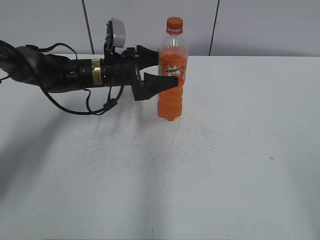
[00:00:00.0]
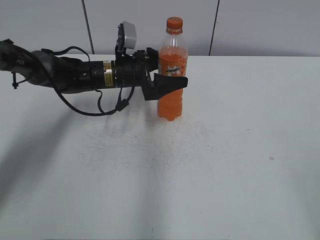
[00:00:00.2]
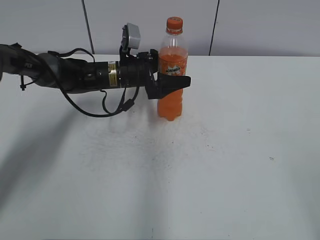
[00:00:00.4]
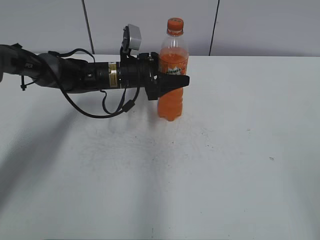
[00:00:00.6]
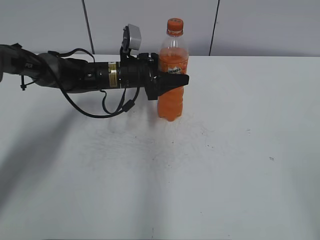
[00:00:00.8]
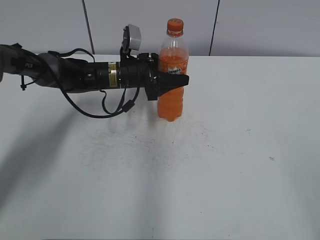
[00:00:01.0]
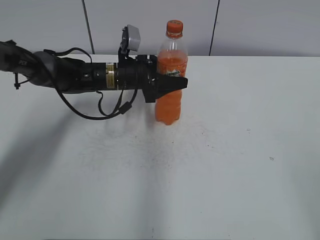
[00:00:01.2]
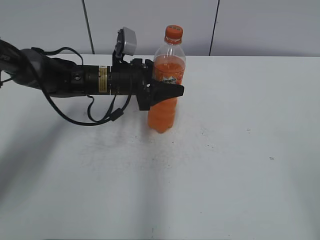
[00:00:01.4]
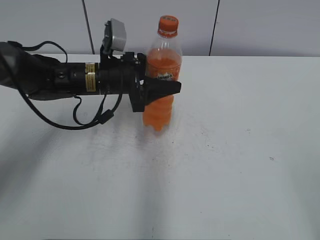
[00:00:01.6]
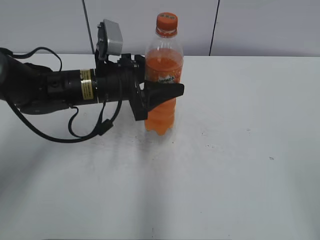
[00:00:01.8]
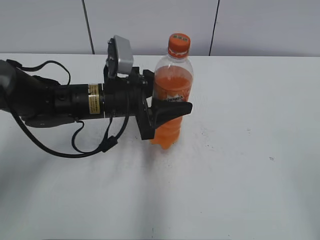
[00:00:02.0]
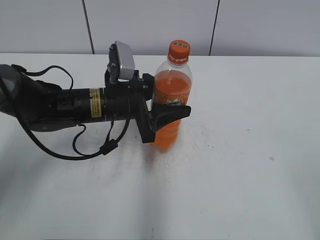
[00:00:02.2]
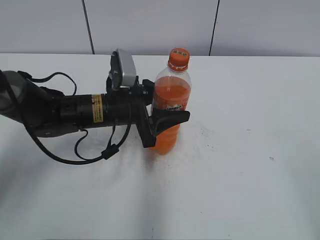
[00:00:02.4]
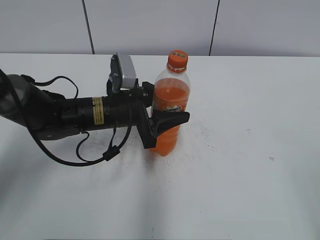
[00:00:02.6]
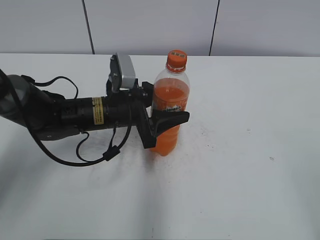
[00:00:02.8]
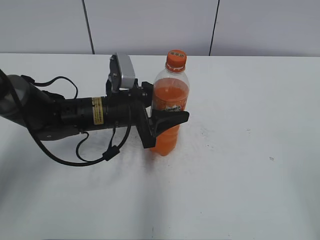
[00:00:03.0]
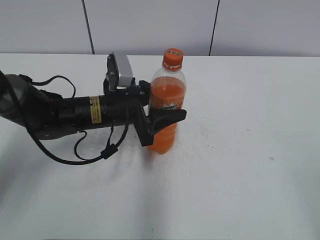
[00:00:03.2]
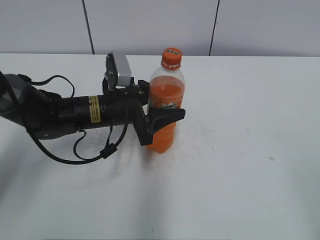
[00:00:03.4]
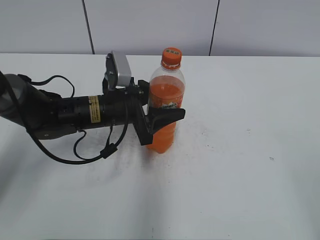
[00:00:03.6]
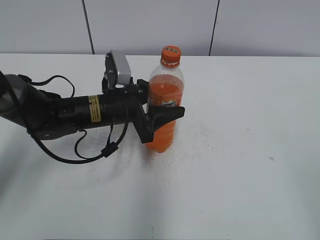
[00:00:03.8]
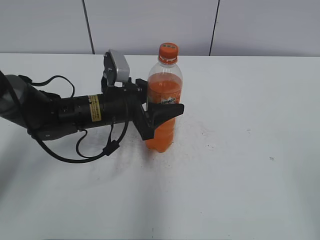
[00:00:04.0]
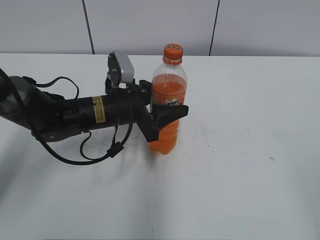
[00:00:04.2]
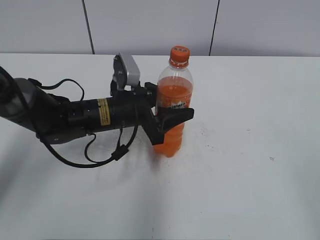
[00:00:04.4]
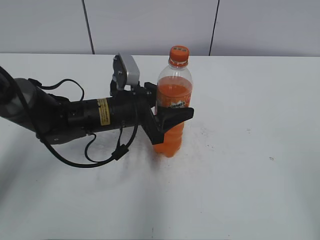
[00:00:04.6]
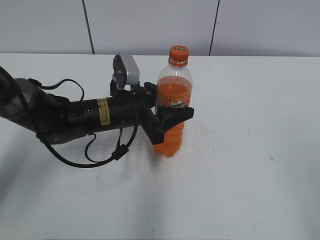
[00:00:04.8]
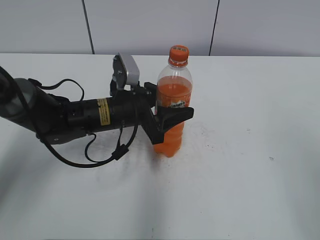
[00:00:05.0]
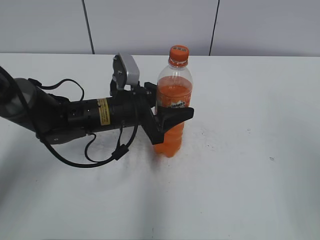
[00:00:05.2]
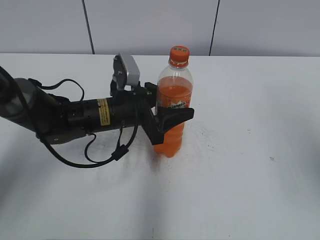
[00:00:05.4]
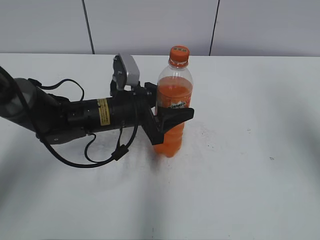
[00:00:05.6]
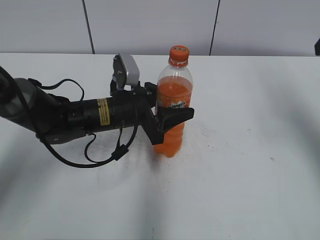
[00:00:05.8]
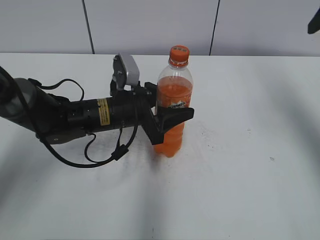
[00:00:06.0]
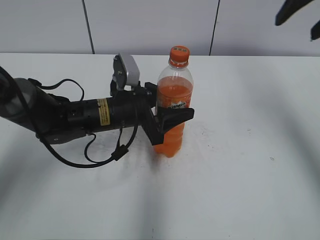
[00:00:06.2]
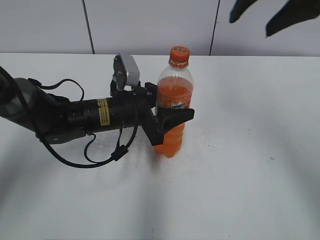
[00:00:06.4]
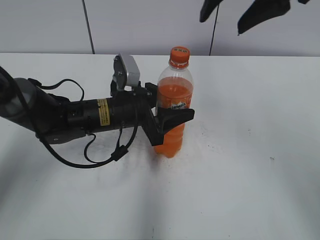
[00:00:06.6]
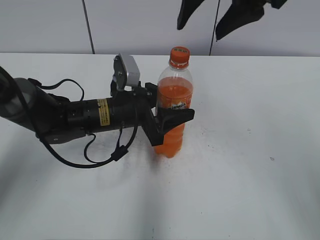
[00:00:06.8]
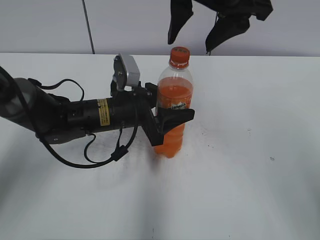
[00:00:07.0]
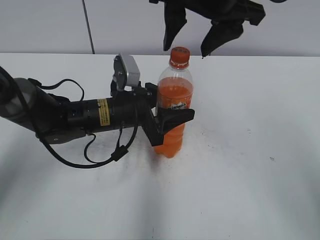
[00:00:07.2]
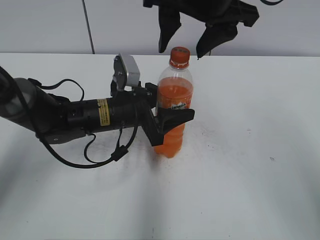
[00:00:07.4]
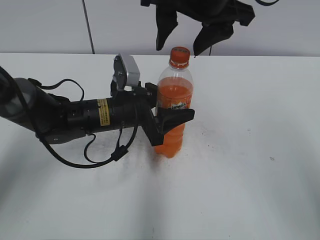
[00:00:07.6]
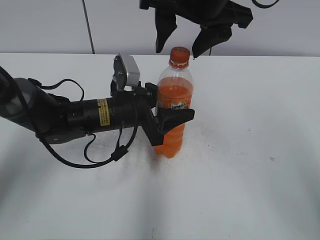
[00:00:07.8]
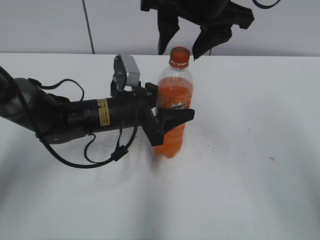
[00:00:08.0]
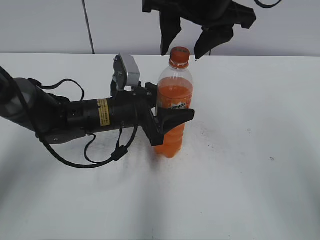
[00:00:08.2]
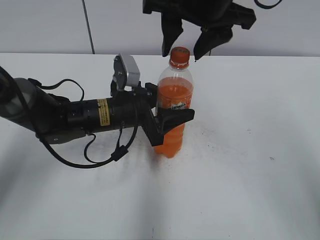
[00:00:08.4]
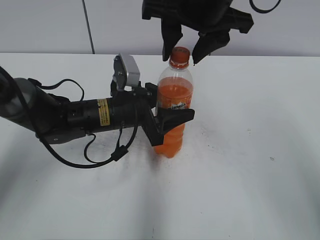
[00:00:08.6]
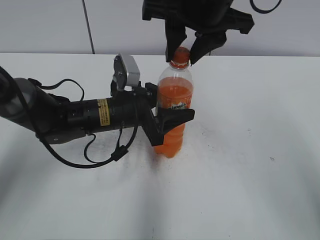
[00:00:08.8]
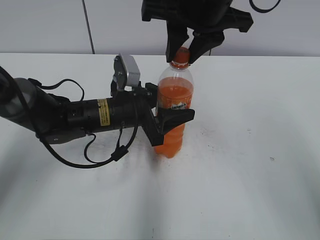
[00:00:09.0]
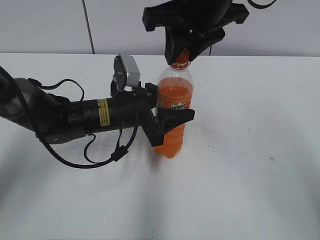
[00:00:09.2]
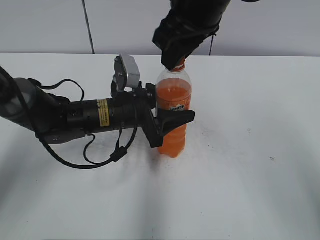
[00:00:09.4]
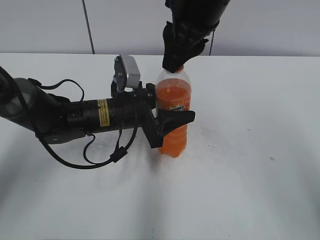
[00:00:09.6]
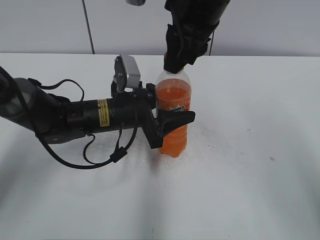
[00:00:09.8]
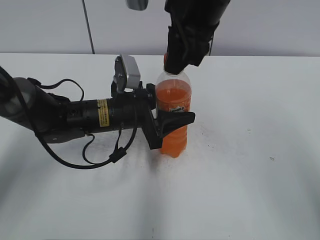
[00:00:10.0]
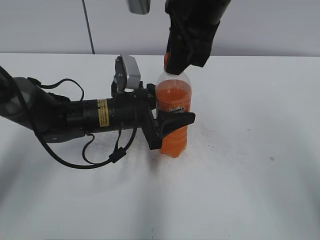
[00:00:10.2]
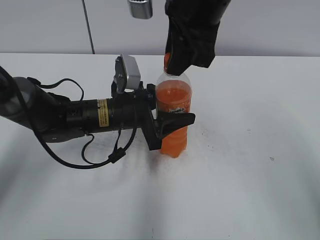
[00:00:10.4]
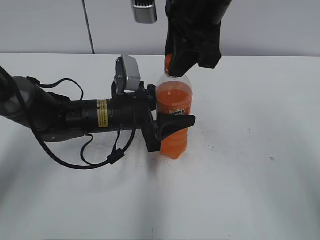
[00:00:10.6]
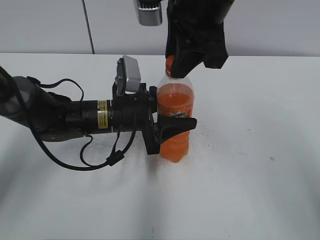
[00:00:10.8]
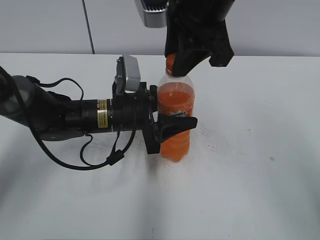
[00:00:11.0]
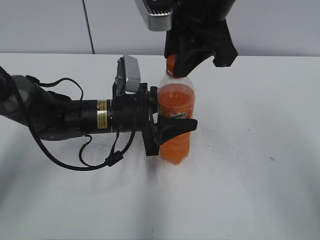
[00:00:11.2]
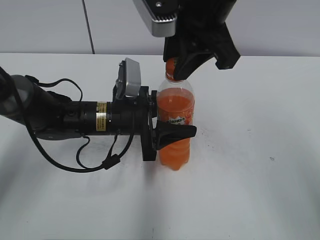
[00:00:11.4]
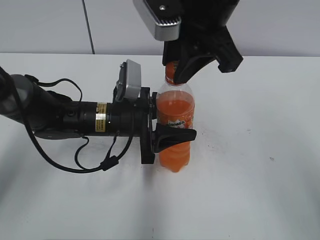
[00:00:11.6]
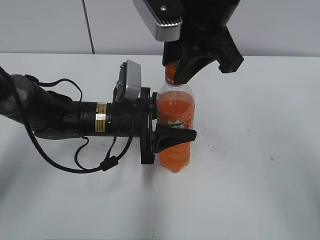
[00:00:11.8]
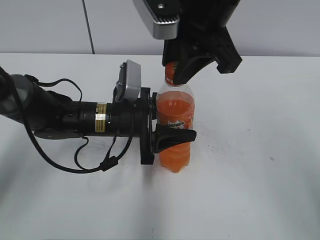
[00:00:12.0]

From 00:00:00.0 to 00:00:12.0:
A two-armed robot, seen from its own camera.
Step, from 00:00:00.8 to 00:00:02.6: Move the Mirinda from top to bottom.
From 00:00:00.0 to 00:00:01.6: The left gripper closes its fingers.
From 00:00:01.6 to 00:00:03.0: The left gripper shifts about 5 cm backward.
From 00:00:03.0 to 00:00:04.4: The grippers make only small movements.
From 00:00:04.4 to 00:00:06.0: The right gripper is displaced forward by roughly 30 cm.
From 00:00:06.0 to 00:00:07.6: The right gripper is displaced to the left by about 20 cm.
From 00:00:07.6 to 00:00:09.0: The right gripper closes.

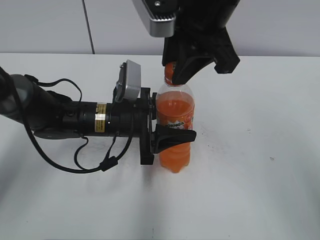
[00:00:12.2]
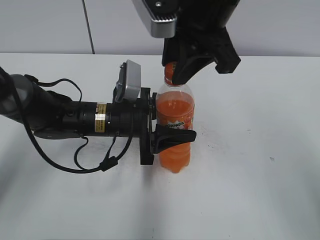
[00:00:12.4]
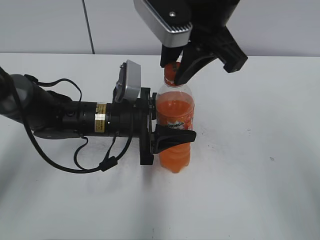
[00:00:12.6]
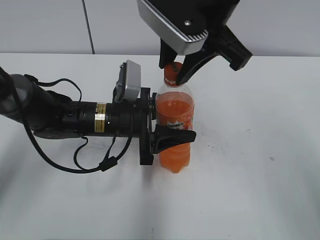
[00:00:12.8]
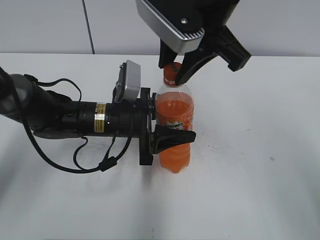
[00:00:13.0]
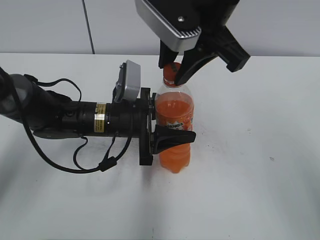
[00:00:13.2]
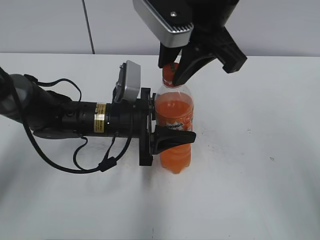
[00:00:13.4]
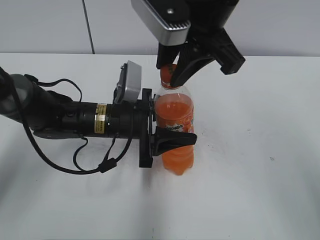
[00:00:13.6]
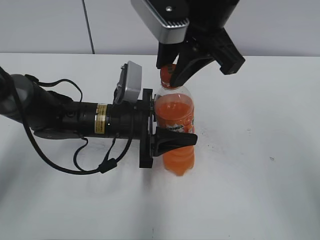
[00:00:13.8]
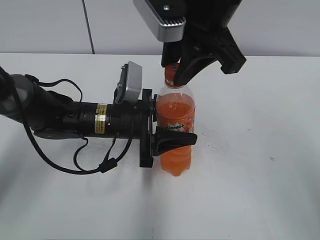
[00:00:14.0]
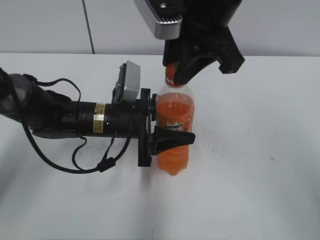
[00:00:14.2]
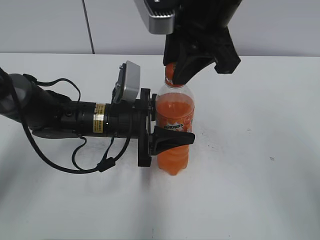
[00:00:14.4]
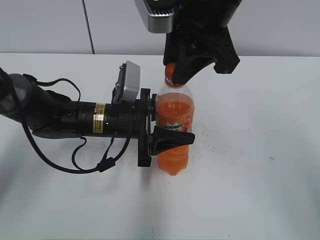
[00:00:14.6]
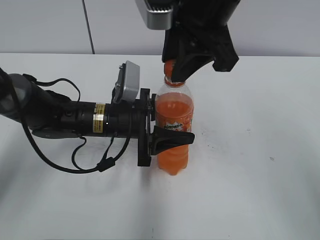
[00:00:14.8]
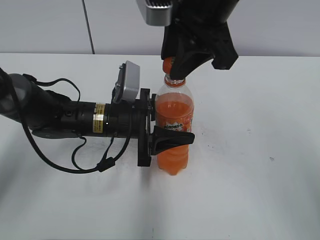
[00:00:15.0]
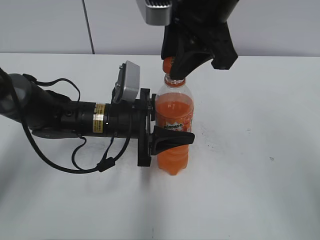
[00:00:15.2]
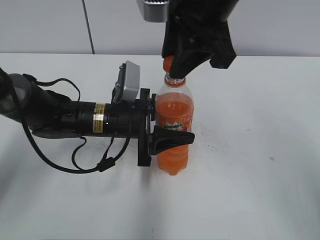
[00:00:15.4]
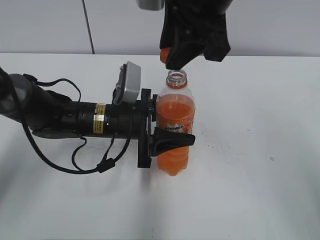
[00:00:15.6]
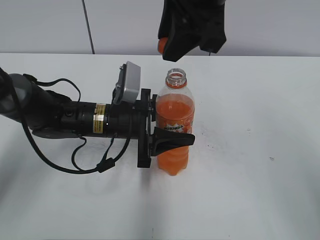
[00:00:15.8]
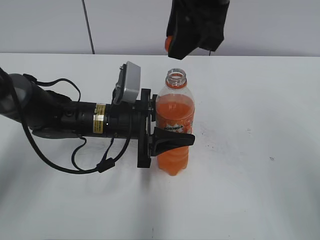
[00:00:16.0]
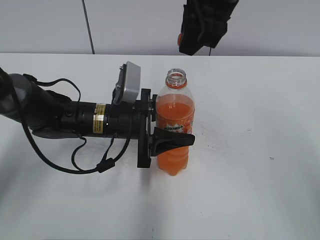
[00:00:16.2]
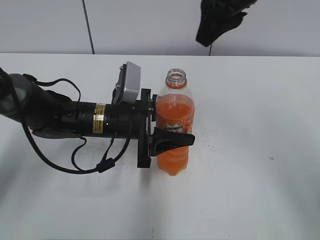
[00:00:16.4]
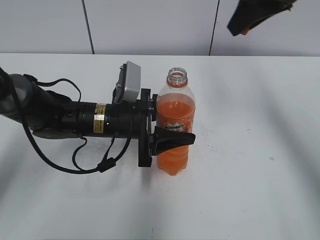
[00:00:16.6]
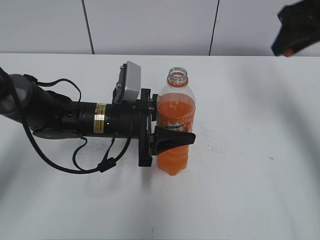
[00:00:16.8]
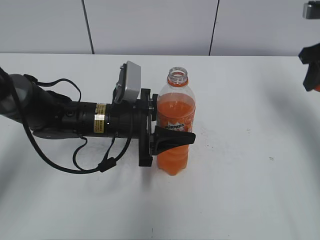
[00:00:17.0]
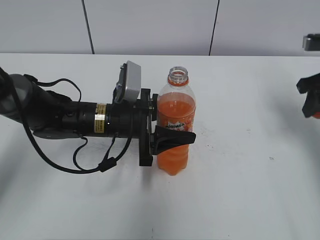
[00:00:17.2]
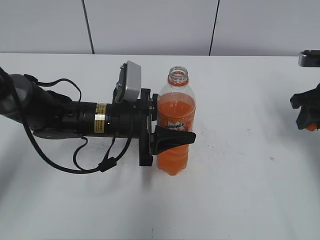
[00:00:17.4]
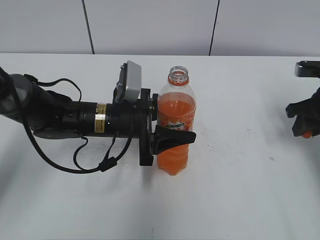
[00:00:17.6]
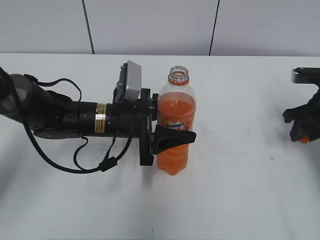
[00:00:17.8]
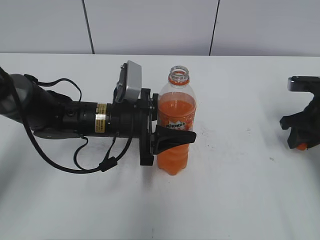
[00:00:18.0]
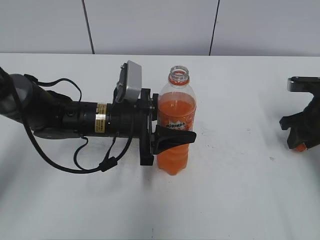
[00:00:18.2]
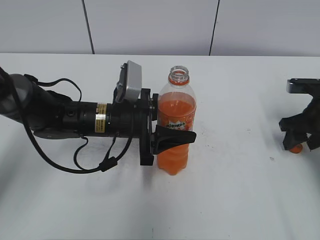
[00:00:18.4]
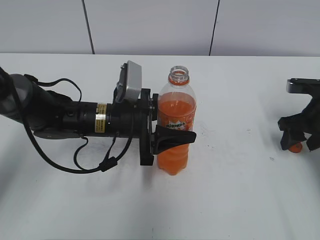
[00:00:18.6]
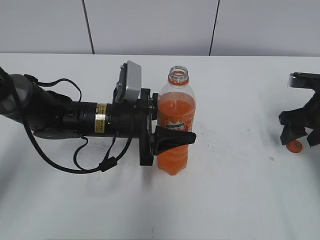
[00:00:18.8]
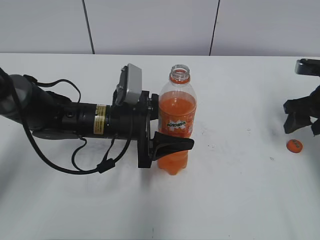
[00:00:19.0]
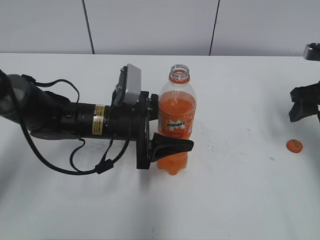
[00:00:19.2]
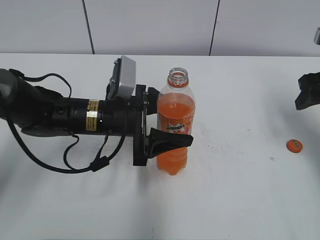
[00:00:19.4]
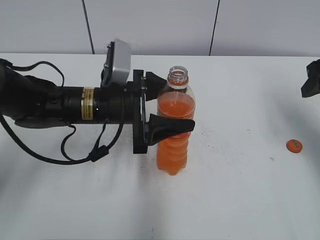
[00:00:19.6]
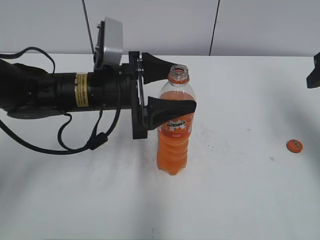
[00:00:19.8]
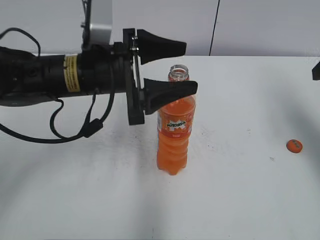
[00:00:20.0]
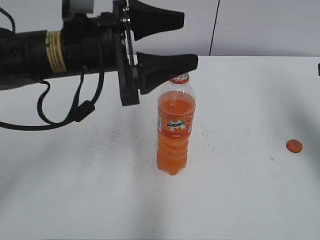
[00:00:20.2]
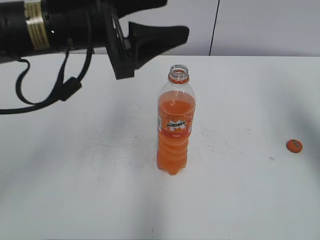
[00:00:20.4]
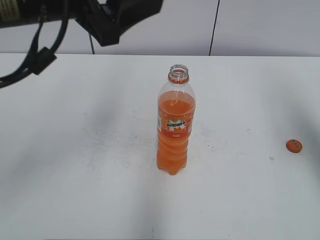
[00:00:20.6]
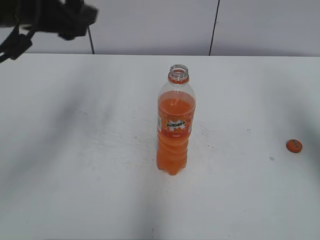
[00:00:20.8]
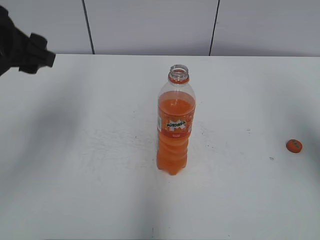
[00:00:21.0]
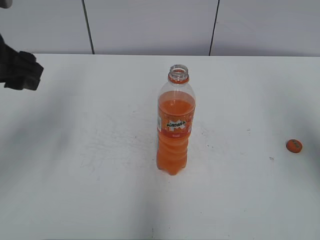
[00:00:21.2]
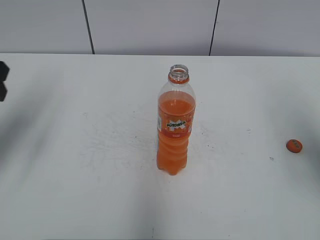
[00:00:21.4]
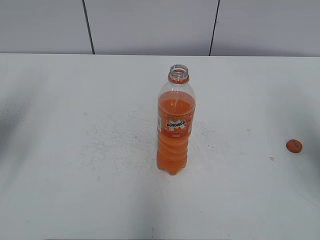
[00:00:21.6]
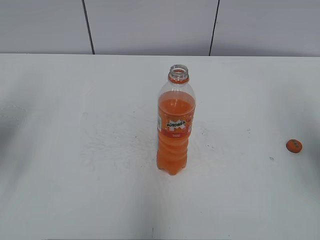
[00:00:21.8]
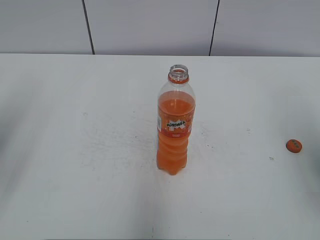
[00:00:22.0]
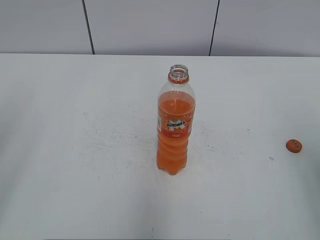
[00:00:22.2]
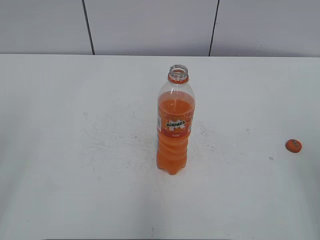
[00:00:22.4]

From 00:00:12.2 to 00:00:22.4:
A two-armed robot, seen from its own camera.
Step, from 00:00:12.2 to 00:00:15.4: Fix the Mirinda on the left.
Step, from 00:00:15.6 to 00:00:18.2: Place the bottle cap on the right.
From 00:00:13.6 to 00:00:15.2: The grippers make only small movements.
From 00:00:15.2 to 00:00:16.6: The right gripper moves to the right and forward, roughly 10 cm.
From 00:00:16.6 to 00:00:18.0: The right gripper is displaced downward and to the right by approximately 30 cm.
From 00:00:18.0 to 00:00:19.4: The left gripper opens its fingers. The right gripper heads upward, covering some 10 cm, and opens.
From 00:00:19.4 to 00:00:21.0: The right gripper moves upward and backward, roughly 15 cm, while the left gripper moves upward and to the left, roughly 20 cm.
From 00:00:21.0 to 00:00:22.4: The left gripper travels backward and to the left by about 20 cm, while the right gripper goes about 15 cm backward and downward.
